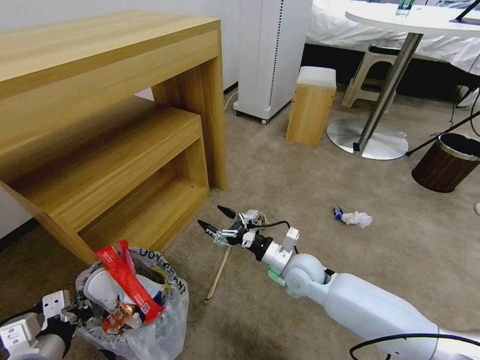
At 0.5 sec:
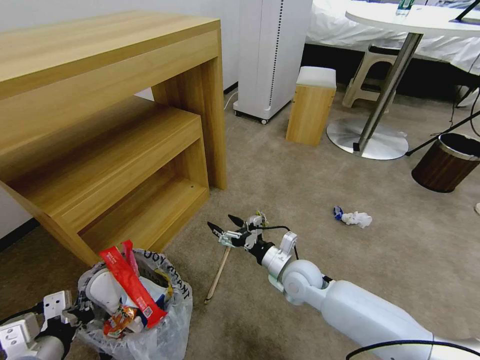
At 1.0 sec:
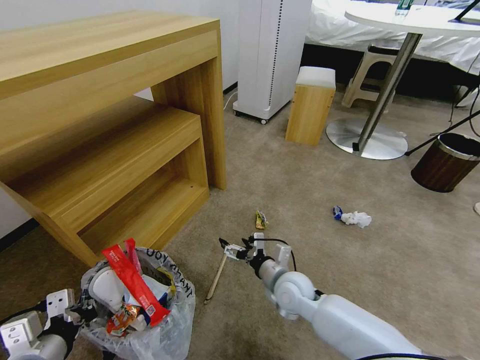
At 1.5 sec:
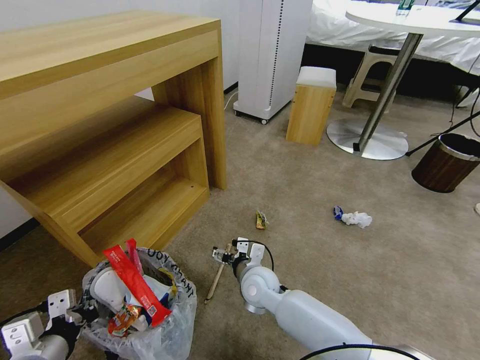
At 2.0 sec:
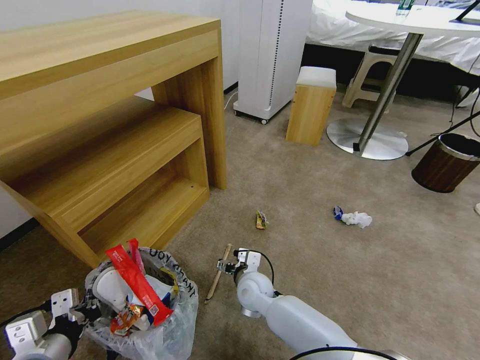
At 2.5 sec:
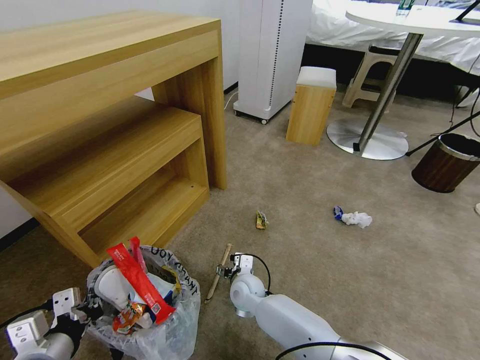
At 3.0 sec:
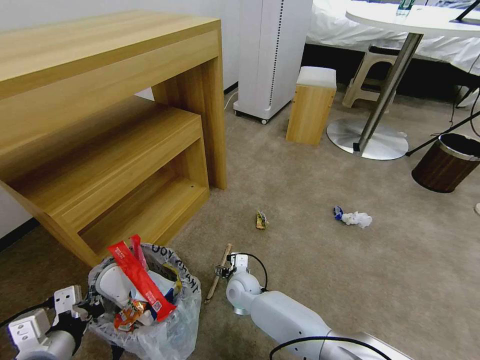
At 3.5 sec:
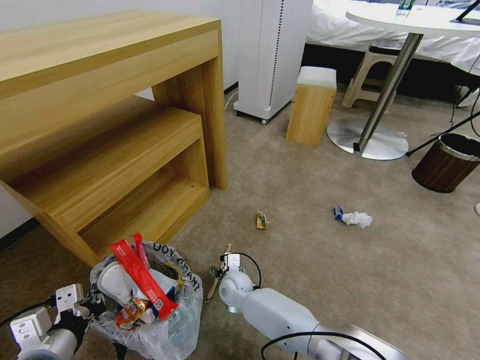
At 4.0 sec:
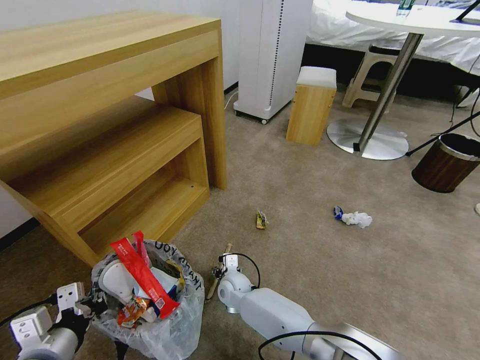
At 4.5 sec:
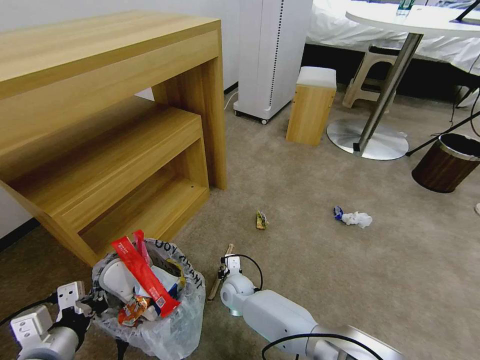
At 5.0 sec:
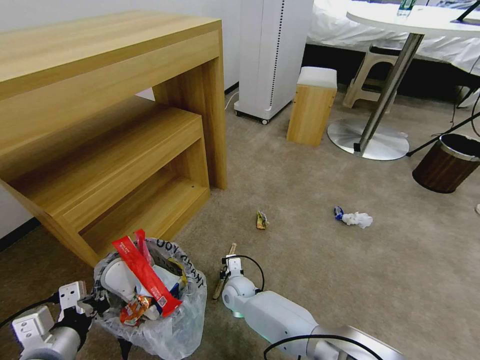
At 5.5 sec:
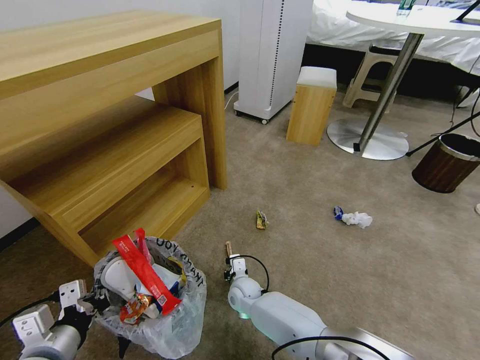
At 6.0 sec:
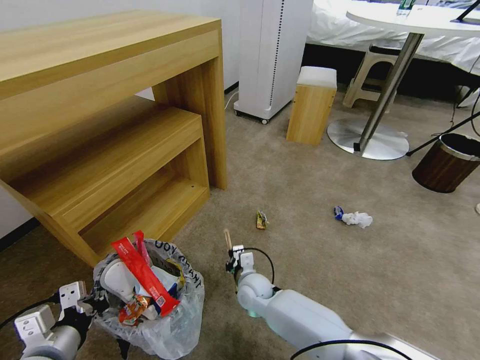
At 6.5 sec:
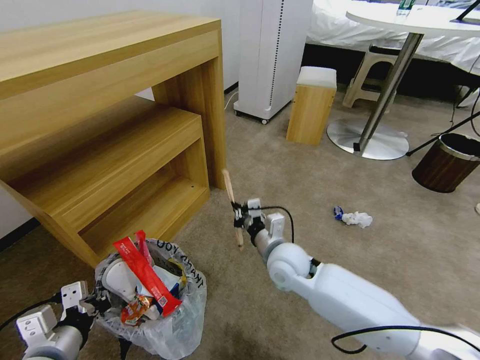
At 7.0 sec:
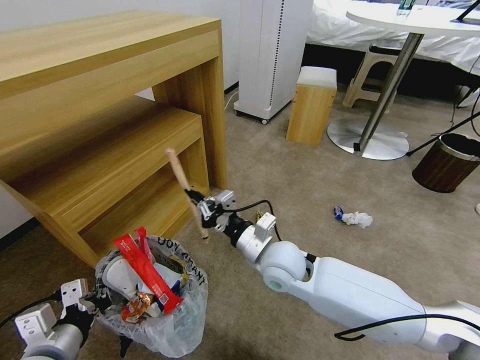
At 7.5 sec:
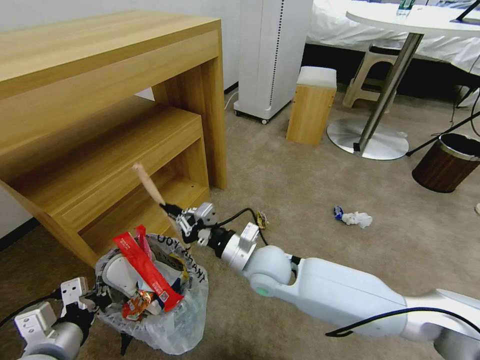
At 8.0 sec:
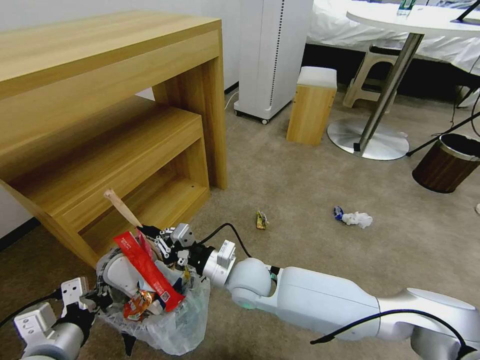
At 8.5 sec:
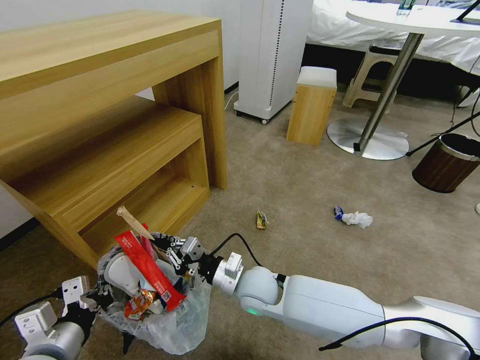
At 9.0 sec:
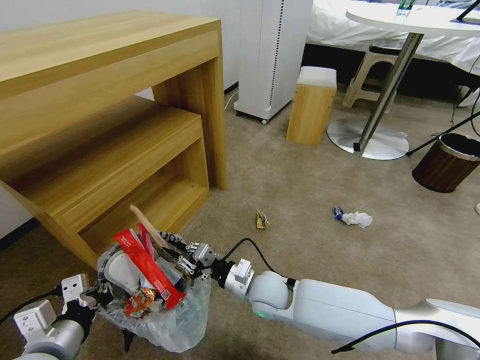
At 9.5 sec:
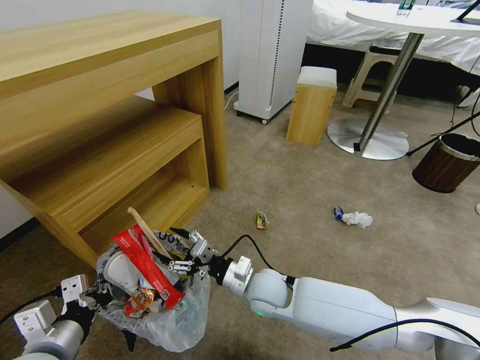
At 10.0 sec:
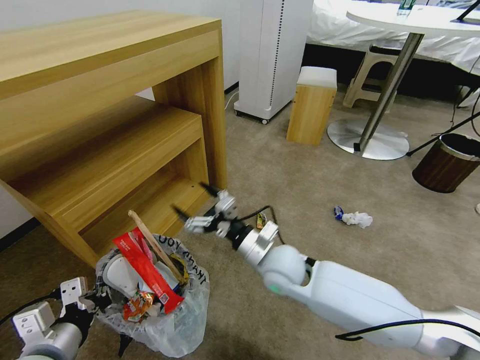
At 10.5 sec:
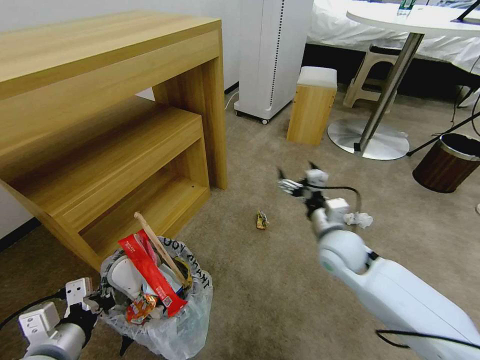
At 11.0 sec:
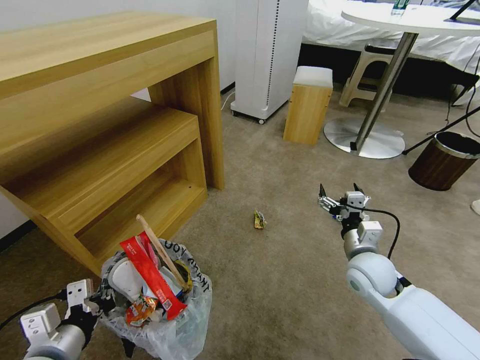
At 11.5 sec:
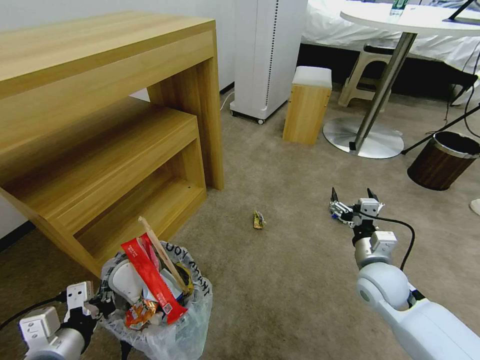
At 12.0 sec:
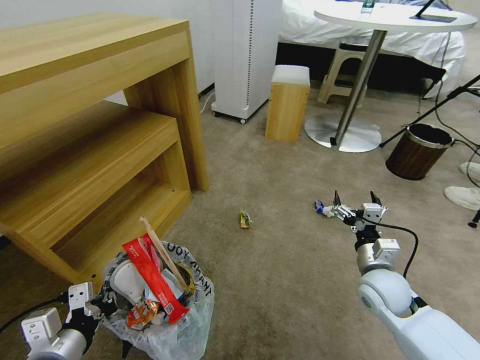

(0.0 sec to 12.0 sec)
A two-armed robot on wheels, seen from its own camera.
Task of the whole recording: Pick up the trash bin and place the garbage on the floor into it.
0.0 sec - 2.0 sec: The right gripper is displaced to the left and downward by roughly 15 cm.
2.0 sec - 4.0 sec: The right gripper heads downward and to the left, covering about 10 cm.
4.0 sec - 6.0 sec: The right gripper moves to the right, roughly 5 cm, and closes up.
6.0 sec - 8.0 sec: The right gripper goes some 15 cm upward.
8.0 sec - 10.0 sec: The right gripper moves to the right, roughly 5 cm, travels downward and back again, roughly 5 cm each way, and opens up.
10.0 sec - 12.0 sec: The right gripper moves to the right, about 25 cm.

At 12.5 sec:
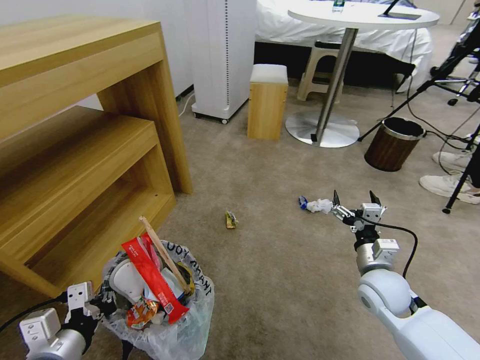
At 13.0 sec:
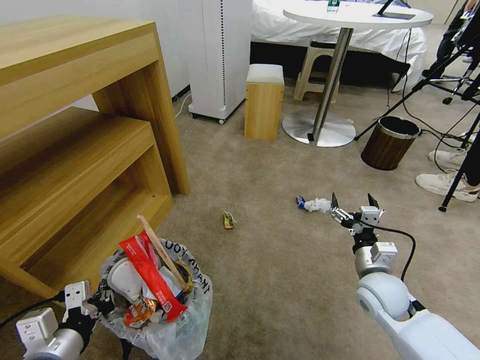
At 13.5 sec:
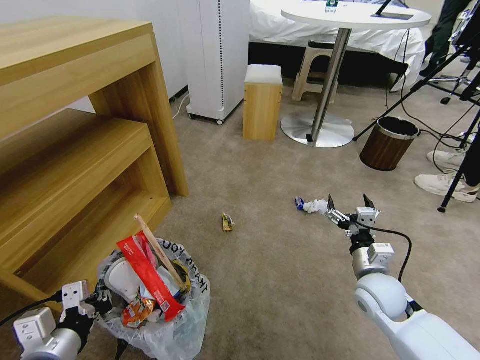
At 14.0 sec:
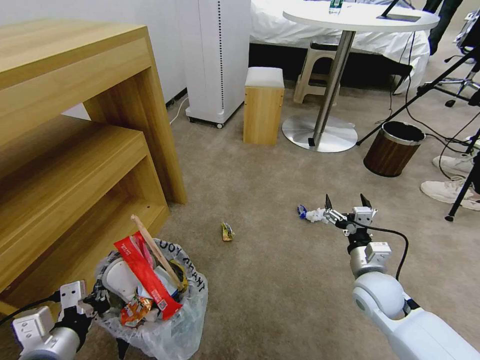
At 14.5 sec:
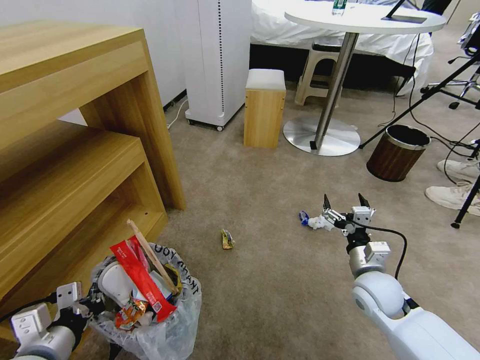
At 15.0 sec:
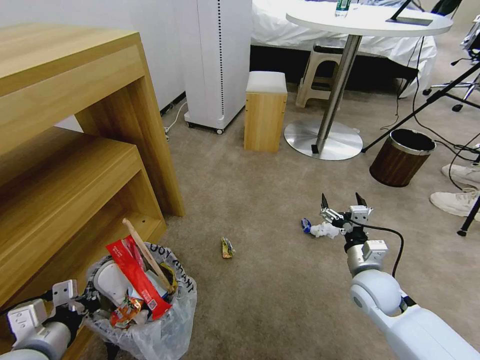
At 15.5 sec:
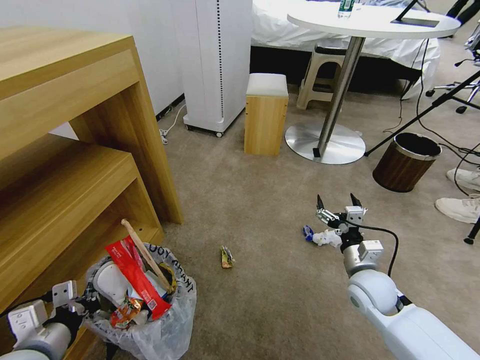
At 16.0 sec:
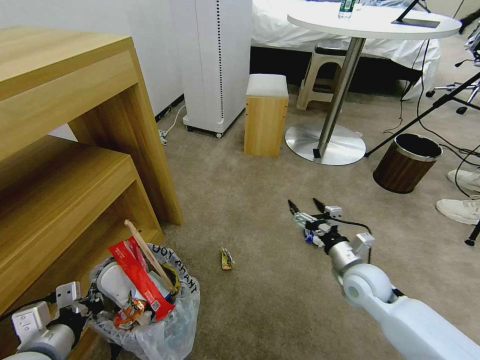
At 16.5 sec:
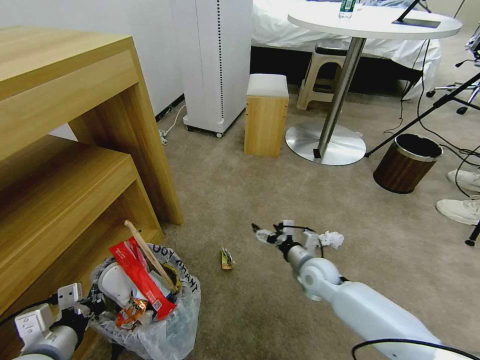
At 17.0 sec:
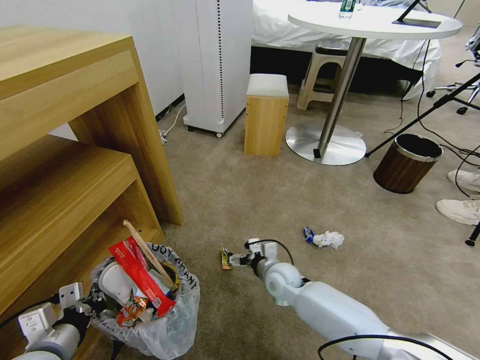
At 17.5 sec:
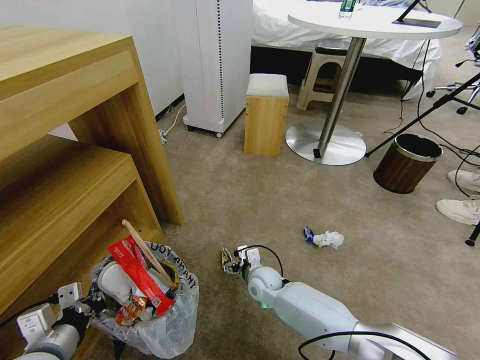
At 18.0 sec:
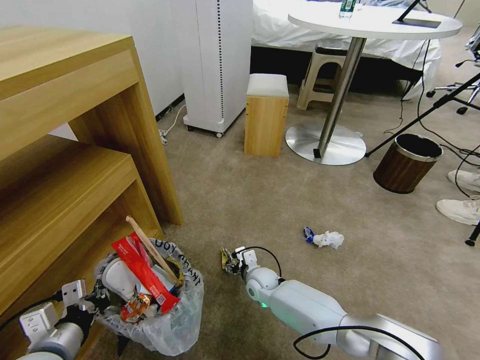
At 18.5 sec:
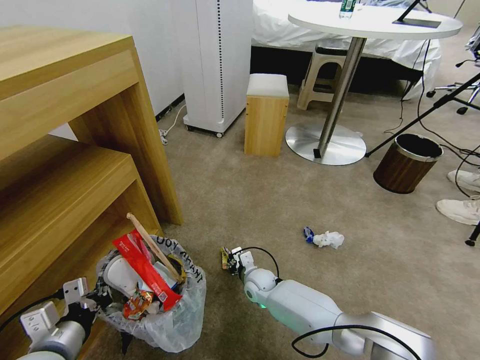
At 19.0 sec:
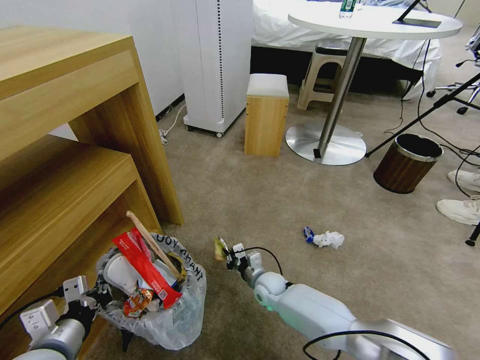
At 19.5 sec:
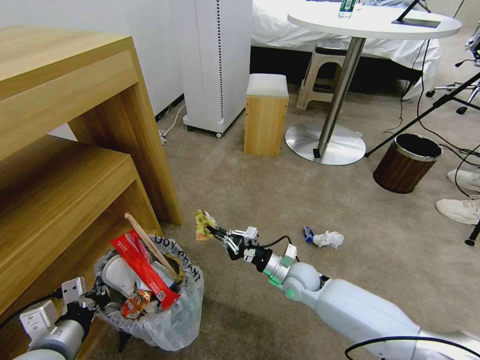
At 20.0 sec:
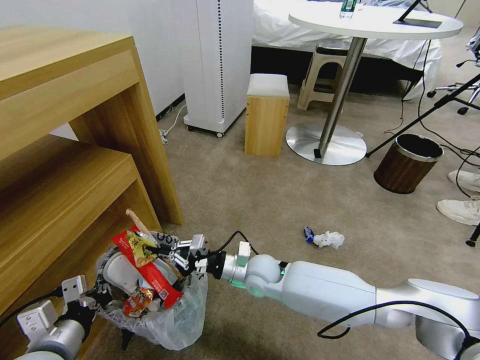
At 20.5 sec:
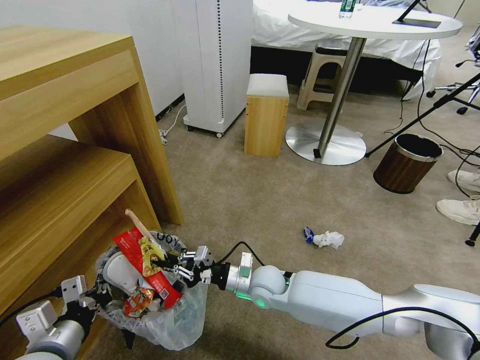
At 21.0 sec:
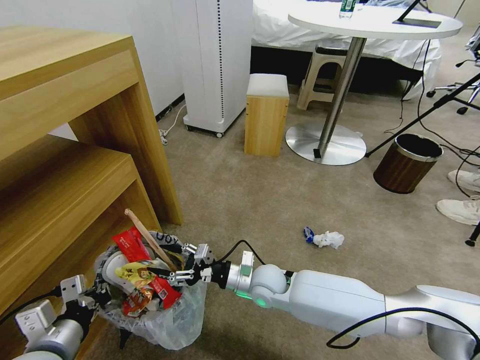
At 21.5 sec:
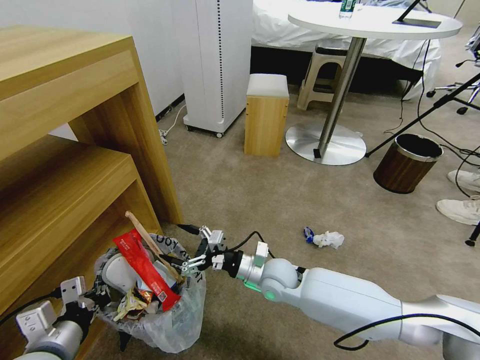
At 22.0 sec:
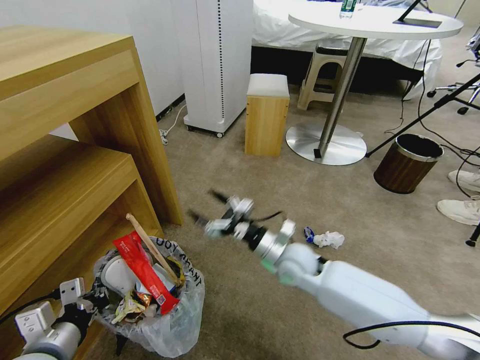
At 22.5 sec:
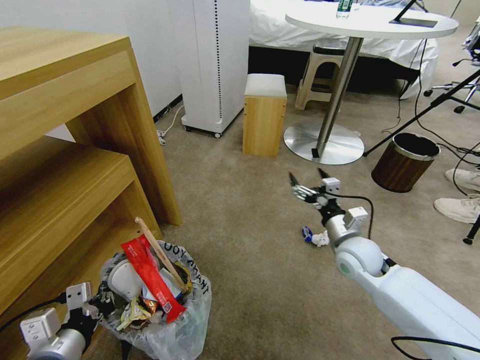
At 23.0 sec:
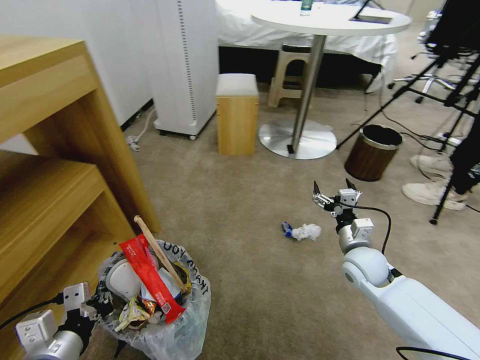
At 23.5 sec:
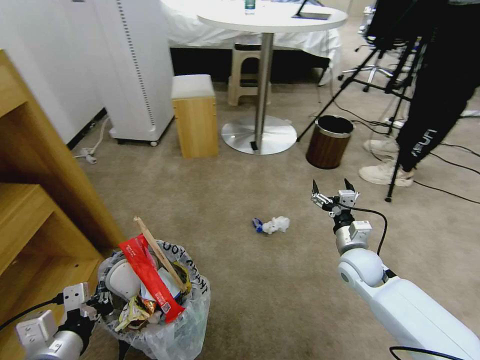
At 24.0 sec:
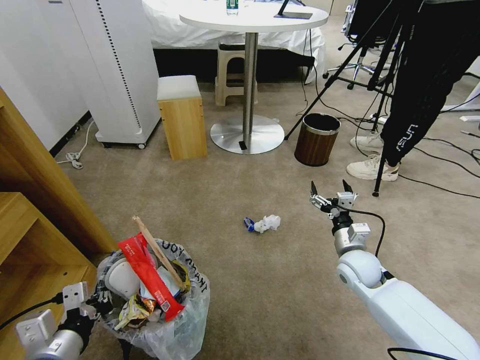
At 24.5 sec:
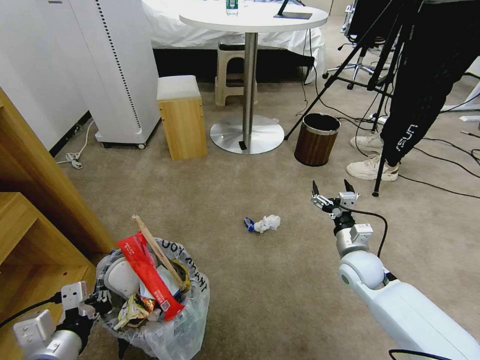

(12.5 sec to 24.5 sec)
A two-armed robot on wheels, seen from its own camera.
Task of the whole recording: Pick up the trash bin and place the garbage on the floor into it.
14.5 sec - 16.5 sec: The right gripper goes some 15 cm to the left, forward and downward.
16.5 sec - 18.5 sec: The right gripper is displaced to the left and downward by roughly 20 cm, and closes its fingers.
18.5 sec - 20.5 sec: The right gripper goes about 15 cm upward and backward.
20.5 sec - 22.5 sec: The right gripper goes approximately 25 cm to the right and upward, and opens its fingers.
22.5 sec - 24.5 sec: The right gripper travels downward by roughly 5 cm.

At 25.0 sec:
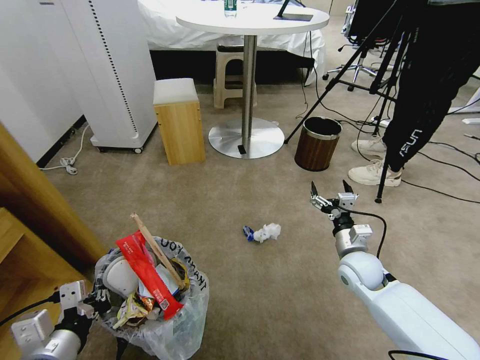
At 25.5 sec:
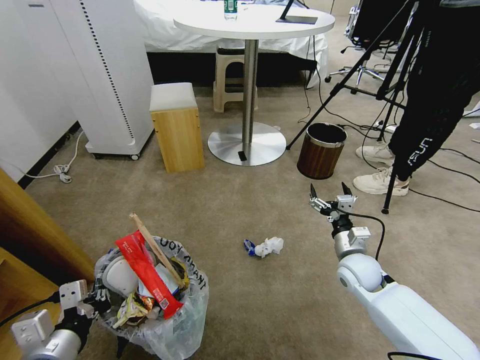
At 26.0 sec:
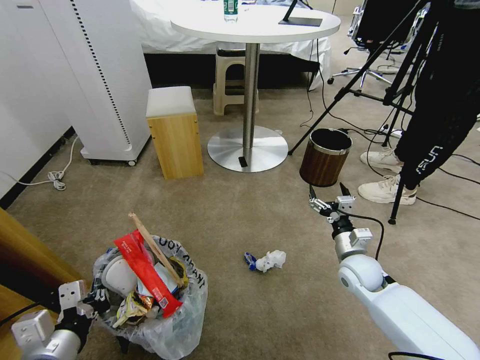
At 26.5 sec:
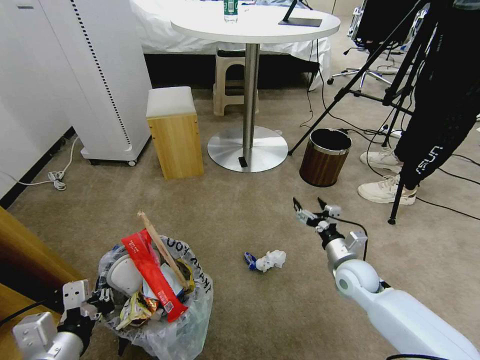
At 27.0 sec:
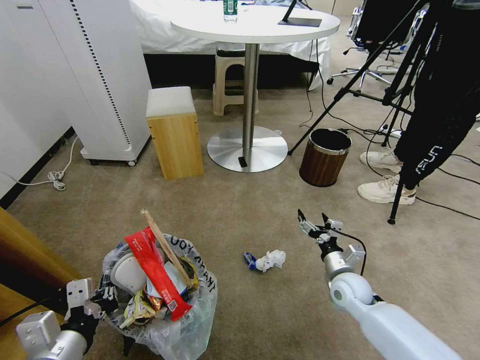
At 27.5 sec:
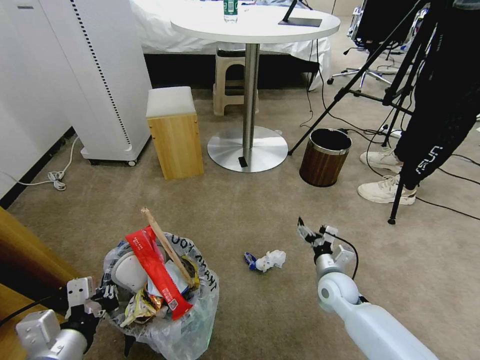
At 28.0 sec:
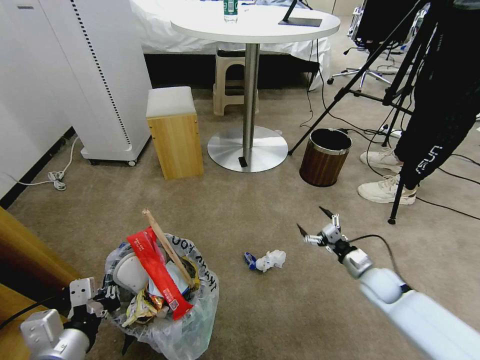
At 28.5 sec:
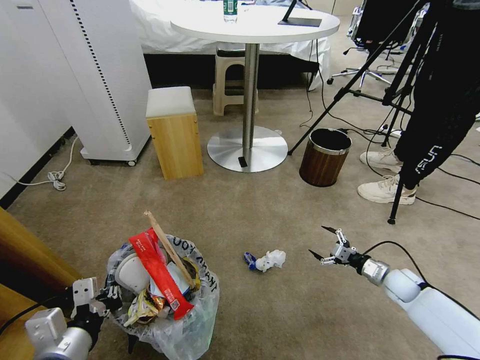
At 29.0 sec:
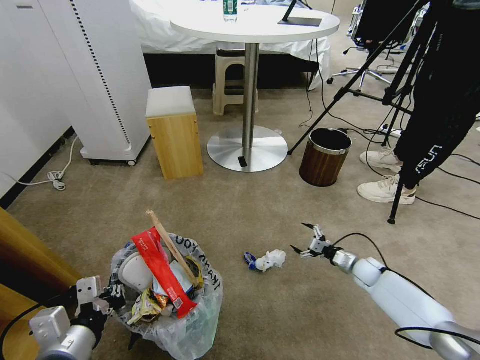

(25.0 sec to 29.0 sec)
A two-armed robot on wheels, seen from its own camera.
Task of the whole recording: Pick up the trash bin and place the garbage on the floor into it.
25.0 sec - 27.0 sec: The right gripper travels downward by some 5 cm.
27.0 sec - 29.0 sec: The right gripper travels to the right, forward and downward by some 15 cm.
